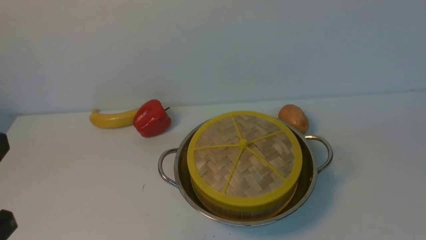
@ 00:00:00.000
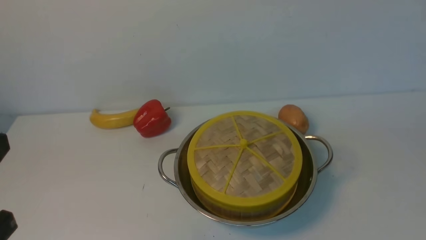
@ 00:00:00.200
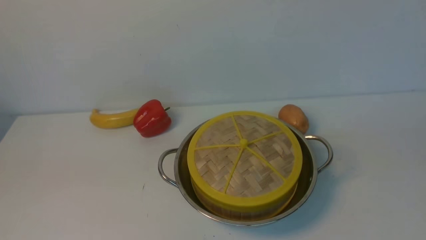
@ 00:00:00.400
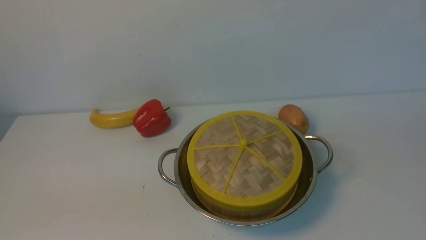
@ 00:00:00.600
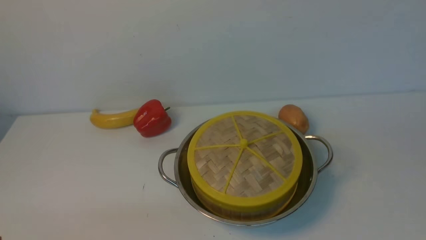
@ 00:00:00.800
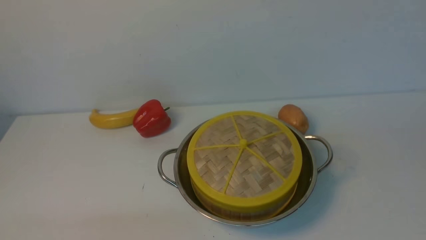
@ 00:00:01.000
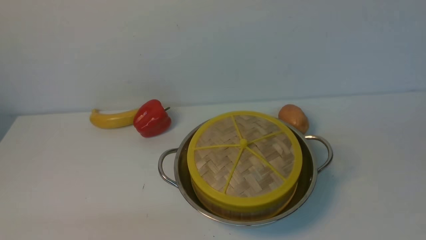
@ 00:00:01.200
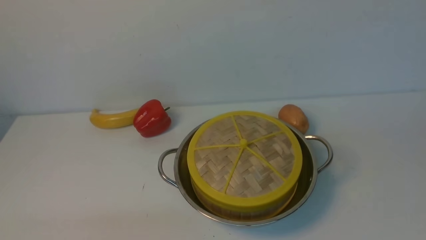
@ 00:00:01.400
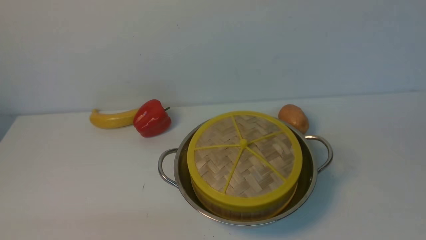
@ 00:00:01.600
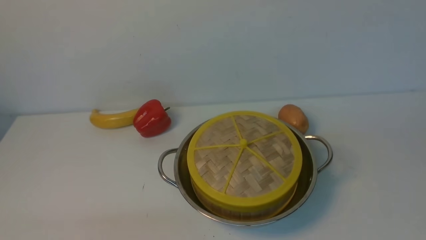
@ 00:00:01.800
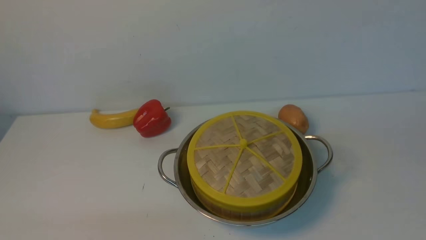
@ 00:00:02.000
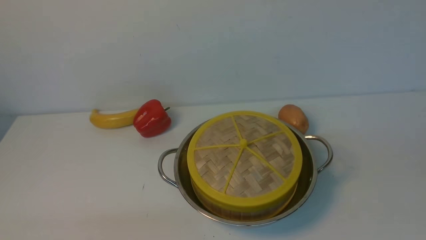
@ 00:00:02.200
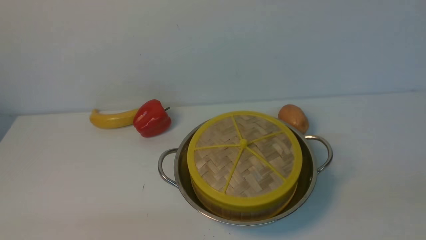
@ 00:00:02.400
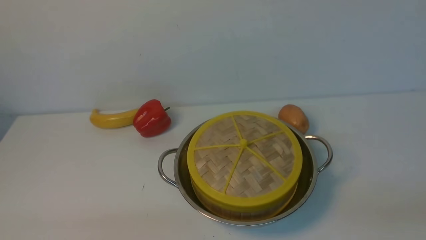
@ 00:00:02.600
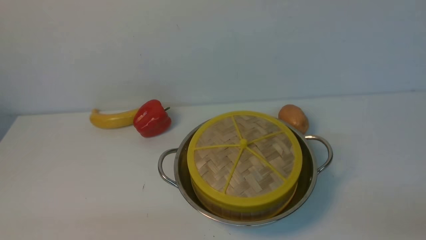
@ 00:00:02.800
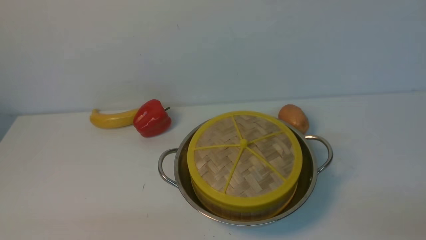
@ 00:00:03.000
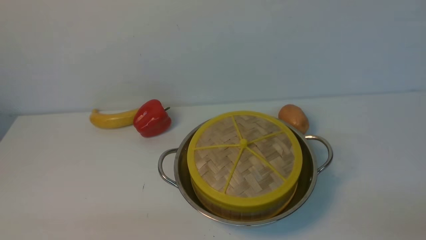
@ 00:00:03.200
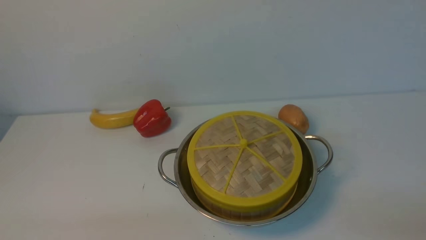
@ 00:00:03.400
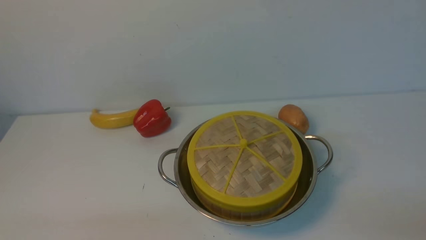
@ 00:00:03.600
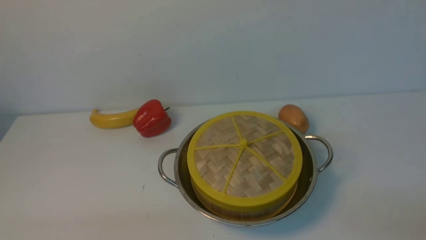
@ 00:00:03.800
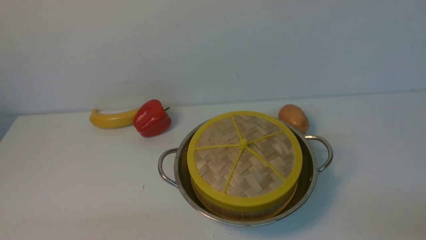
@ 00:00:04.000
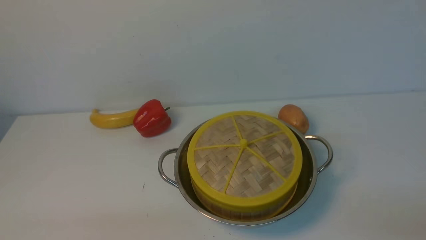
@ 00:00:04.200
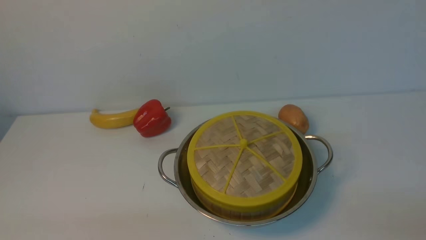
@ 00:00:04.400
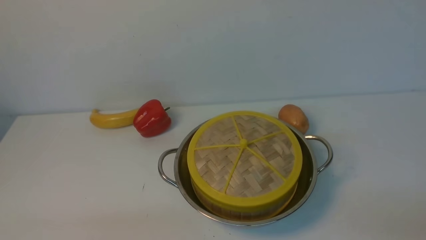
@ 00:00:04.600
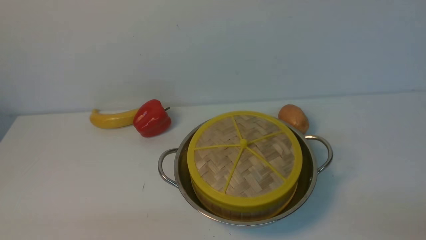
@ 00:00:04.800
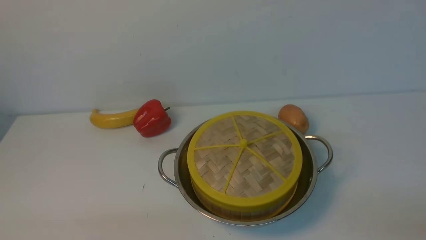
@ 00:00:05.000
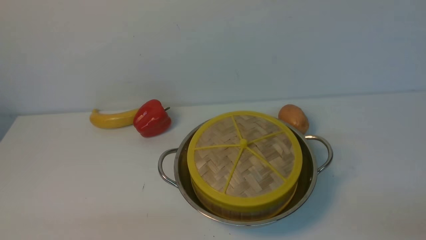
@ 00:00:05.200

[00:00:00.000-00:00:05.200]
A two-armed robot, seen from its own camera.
Task of the whole recording: place the steamer in the pot on the white table, and put the lid on the steamer.
00:00:03.400 to 00:00:05.200: The two grippers keep their place.

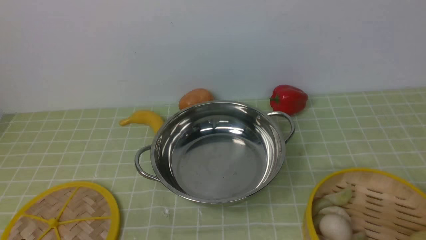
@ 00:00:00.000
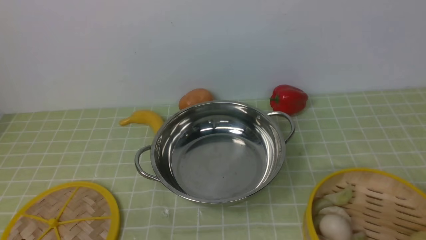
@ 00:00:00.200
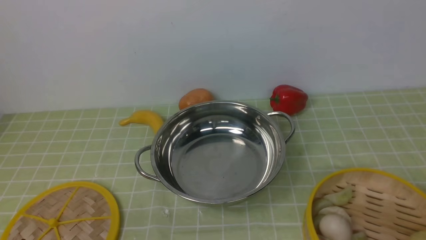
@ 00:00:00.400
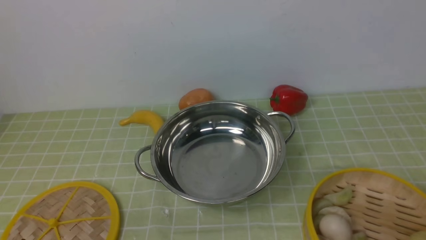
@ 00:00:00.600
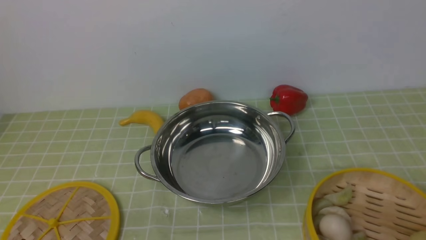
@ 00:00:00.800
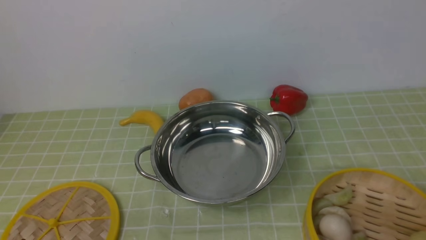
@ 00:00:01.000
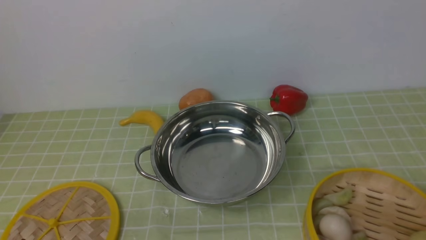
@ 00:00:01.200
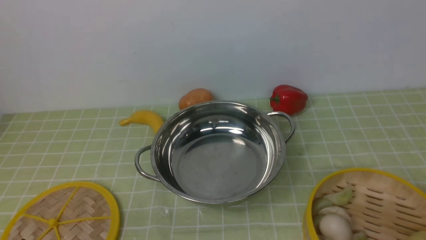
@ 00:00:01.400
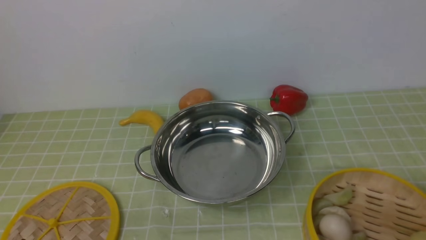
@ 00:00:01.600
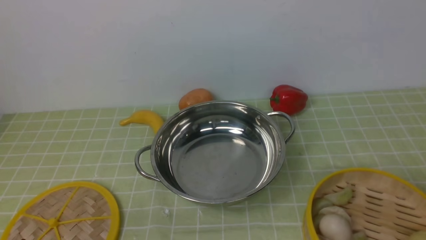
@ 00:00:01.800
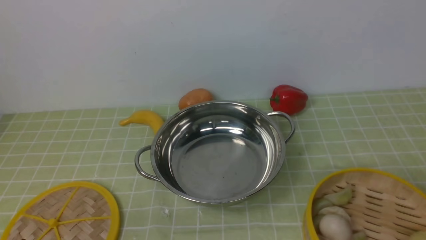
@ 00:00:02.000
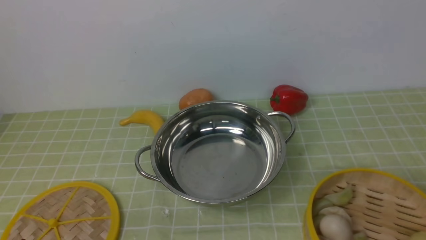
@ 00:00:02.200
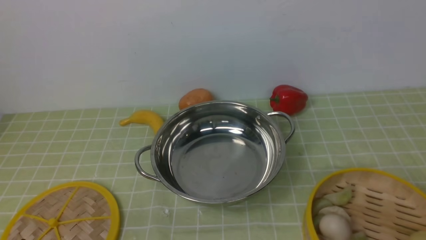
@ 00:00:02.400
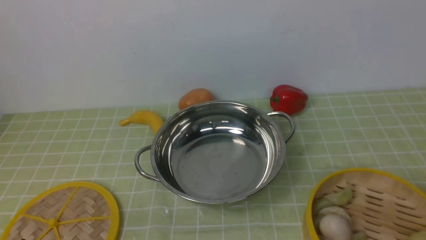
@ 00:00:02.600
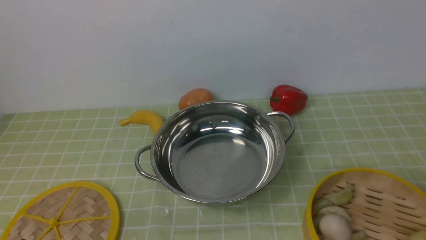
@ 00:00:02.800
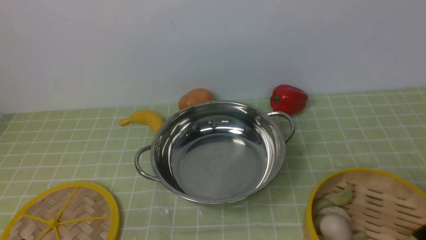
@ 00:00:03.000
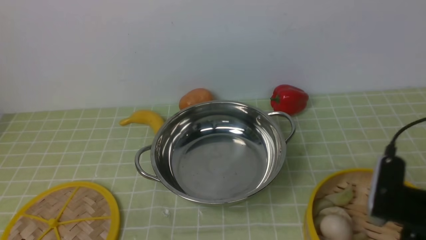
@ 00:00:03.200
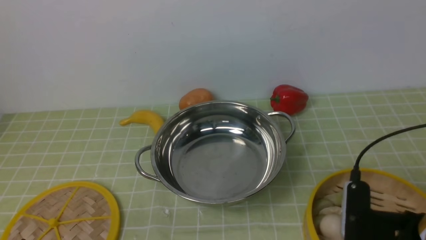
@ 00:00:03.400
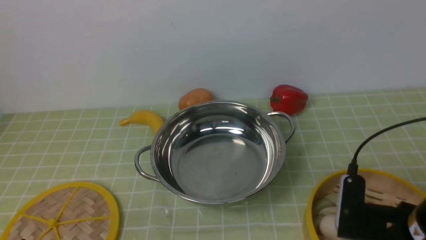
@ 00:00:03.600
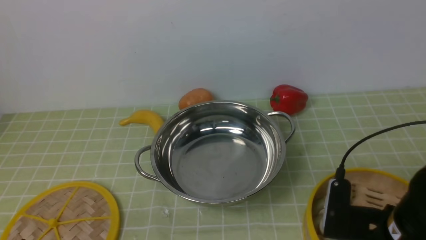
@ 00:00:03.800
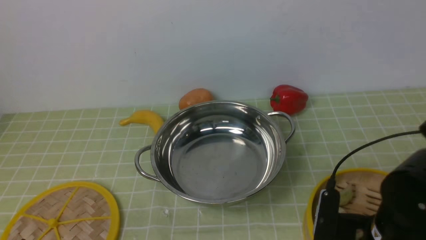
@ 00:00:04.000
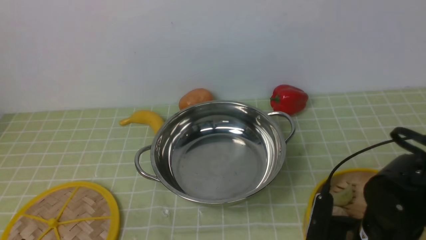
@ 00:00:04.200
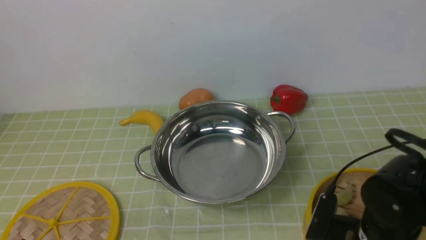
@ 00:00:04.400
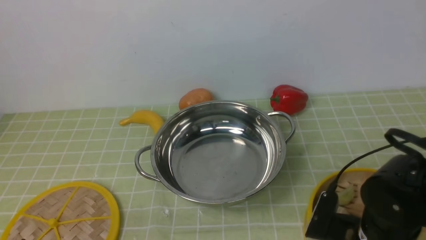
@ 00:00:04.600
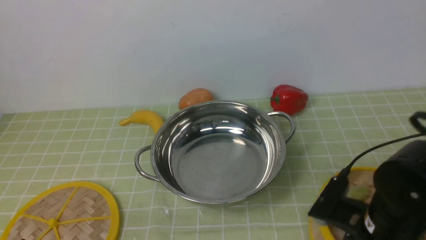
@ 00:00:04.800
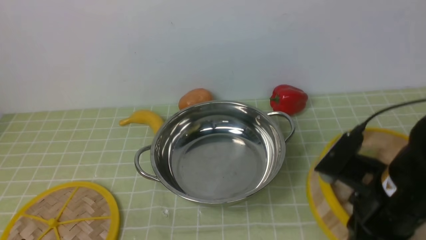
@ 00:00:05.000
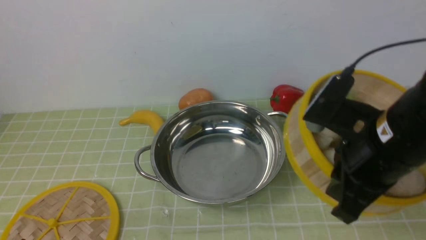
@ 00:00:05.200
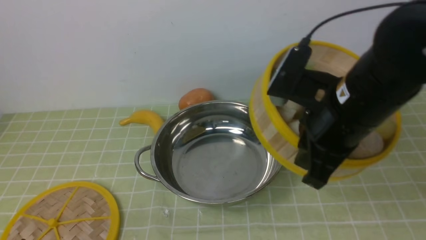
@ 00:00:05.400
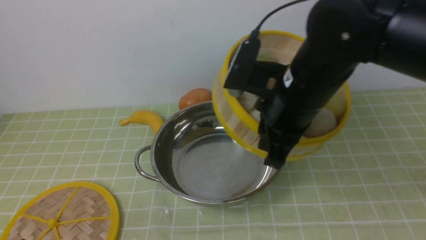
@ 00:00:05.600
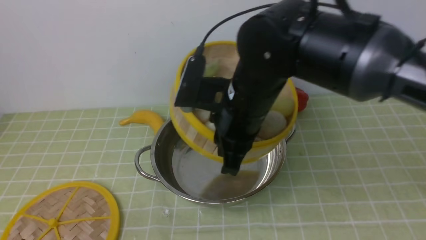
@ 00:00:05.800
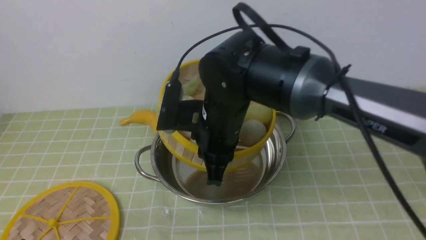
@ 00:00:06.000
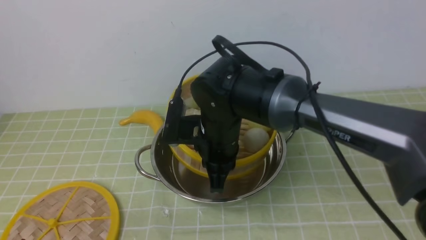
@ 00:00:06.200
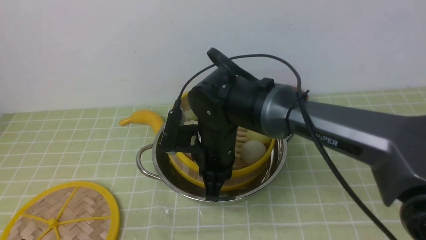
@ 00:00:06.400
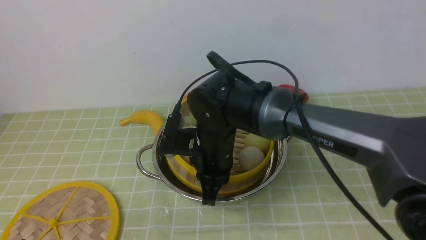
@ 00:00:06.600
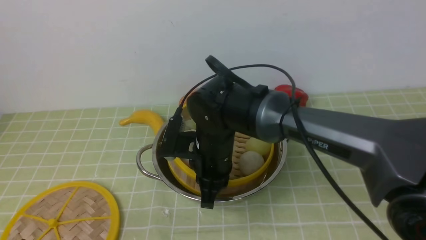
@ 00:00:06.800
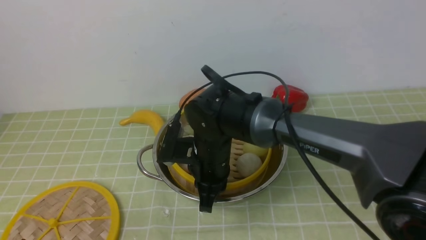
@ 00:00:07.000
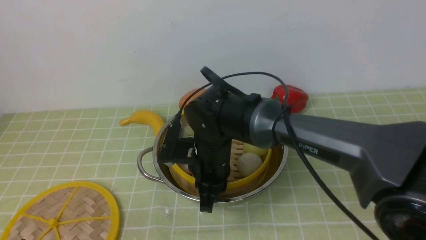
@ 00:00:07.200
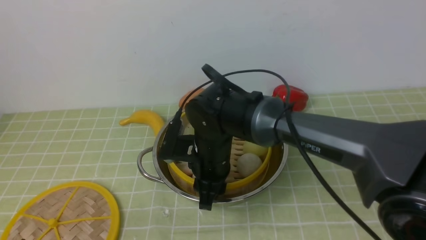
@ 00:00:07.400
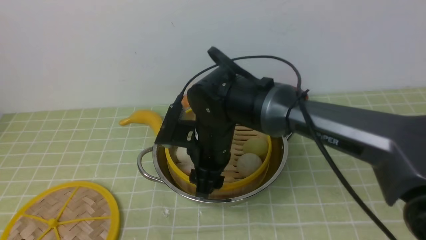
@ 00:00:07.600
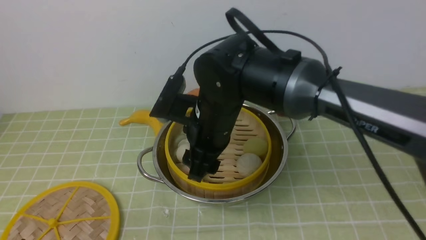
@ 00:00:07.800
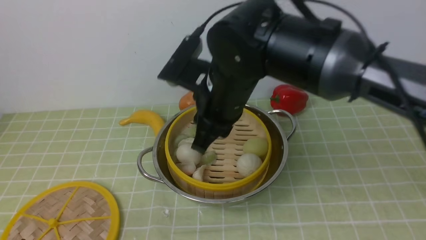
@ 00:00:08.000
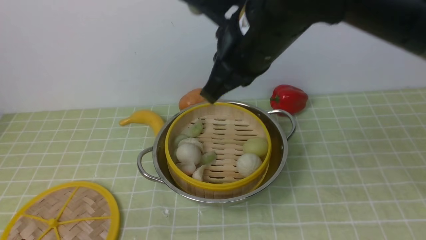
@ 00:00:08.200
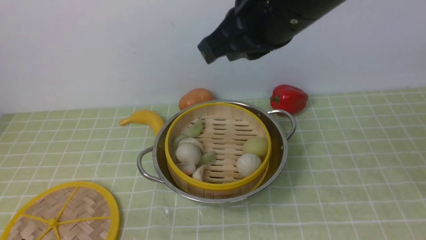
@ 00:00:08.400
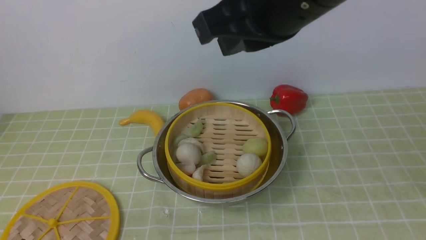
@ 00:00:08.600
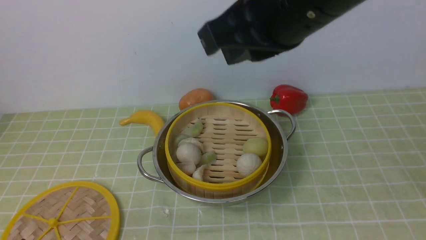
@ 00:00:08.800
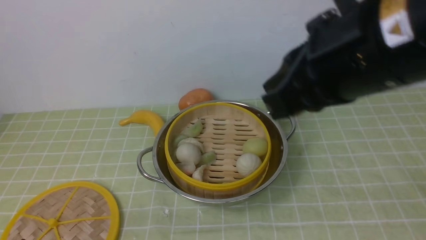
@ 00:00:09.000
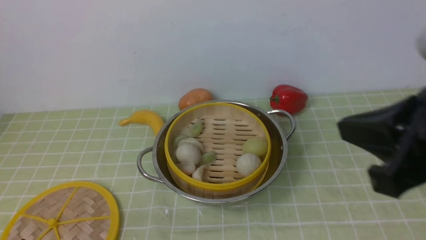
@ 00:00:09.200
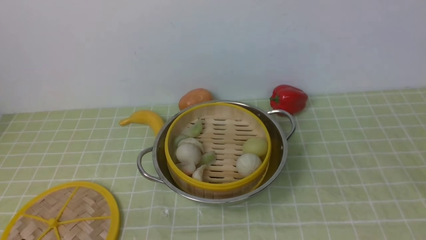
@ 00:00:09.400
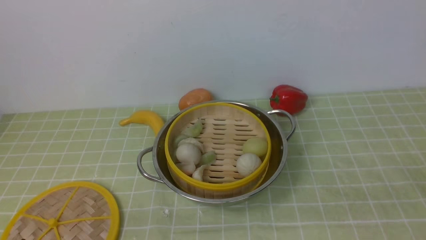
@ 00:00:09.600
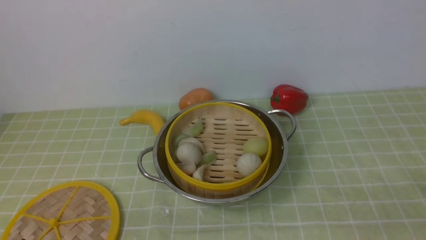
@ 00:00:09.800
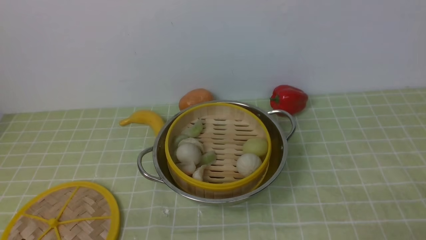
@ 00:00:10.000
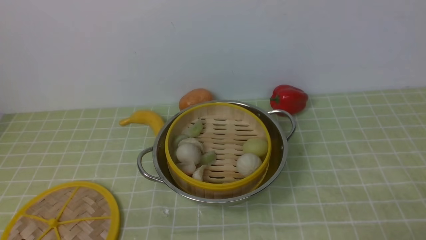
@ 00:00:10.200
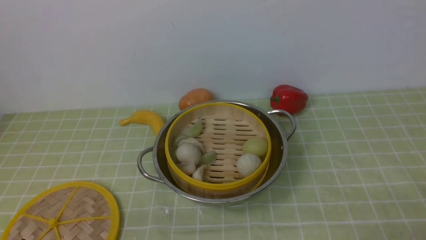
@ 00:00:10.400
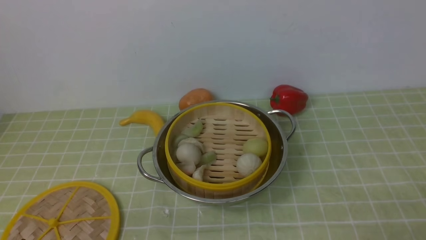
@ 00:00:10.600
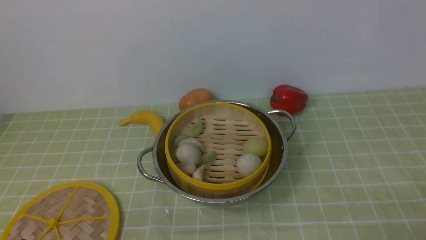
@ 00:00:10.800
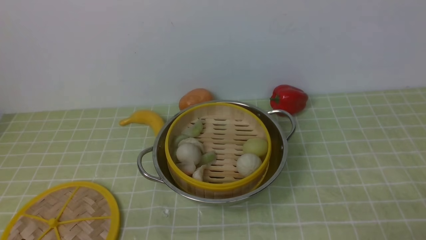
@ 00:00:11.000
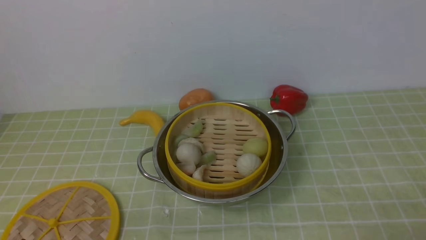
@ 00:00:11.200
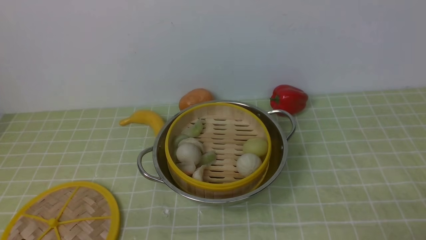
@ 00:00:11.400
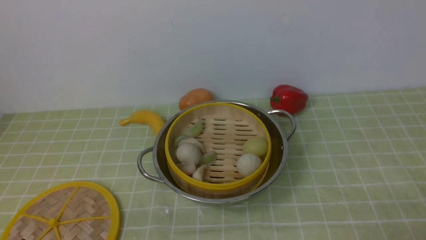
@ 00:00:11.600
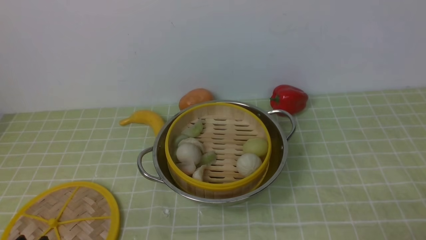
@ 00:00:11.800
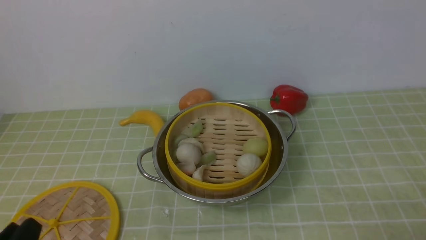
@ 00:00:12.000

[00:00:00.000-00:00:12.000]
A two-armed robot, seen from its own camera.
Task of the whole recording: place the steamer in the pot on the green tablecloth, and put the lid on the steamer.
Step, 00:00:00.000 to 00:00:05.000: use the right arm to lift the steamer closest to it.
Step, 00:00:05.200 to 00:00:08.200: use the right arm to put the steamer into the iron steamer pot in the middle.
00:00:03.000 to 00:00:04.400: The right gripper goes some 20 cm downward, to the left and forward.
00:00:04.400 to 00:00:06.000: The right gripper travels to the left, forward and upward by about 25 cm, and closes up.
00:00:06.000 to 00:00:07.600: The right gripper heads downward, covering approximately 5 cm, and opens.
00:00:07.600 to 00:00:09.000: The right gripper is displaced upward, to the right and backward by approximately 30 cm, and closes.
00:00:09.000 to 00:00:10.400: The right gripper moves downward, to the right and backward, about 35 cm.
